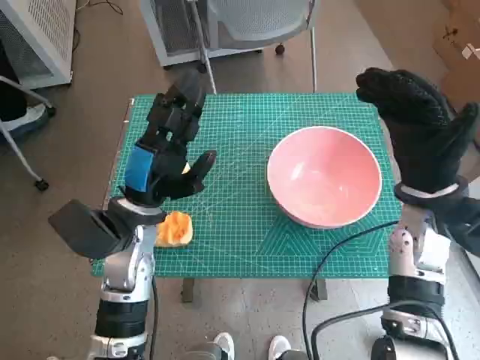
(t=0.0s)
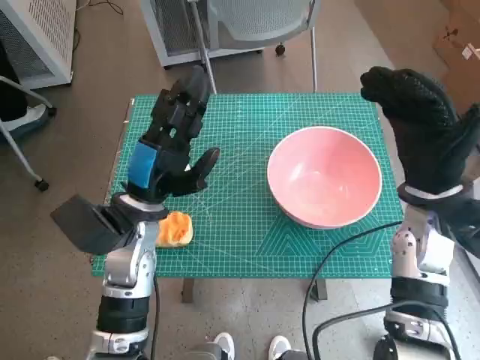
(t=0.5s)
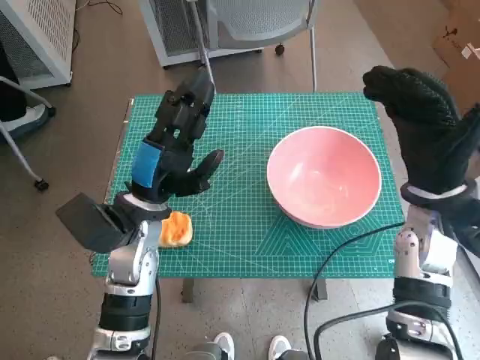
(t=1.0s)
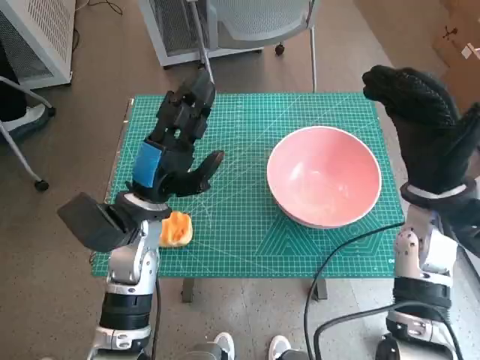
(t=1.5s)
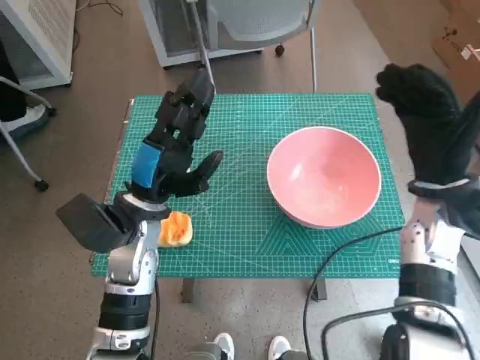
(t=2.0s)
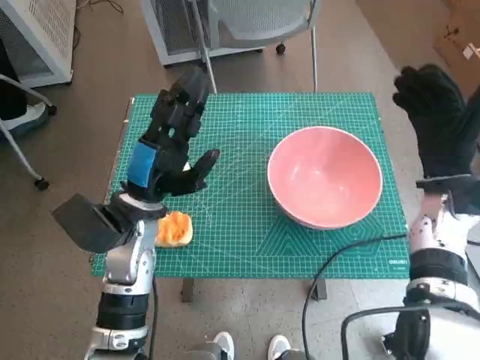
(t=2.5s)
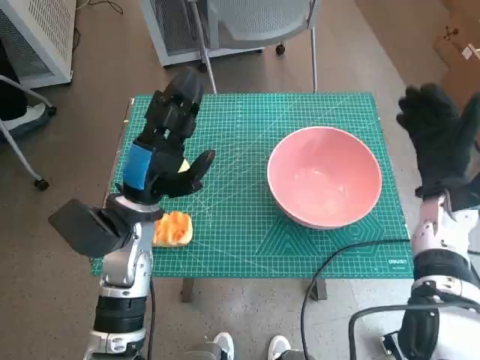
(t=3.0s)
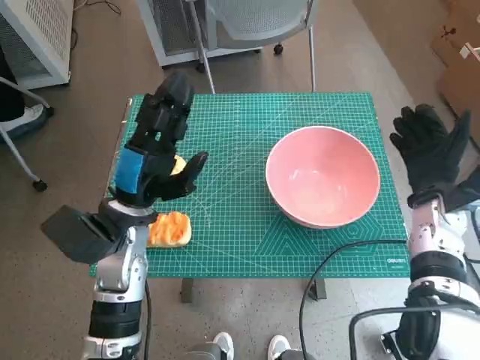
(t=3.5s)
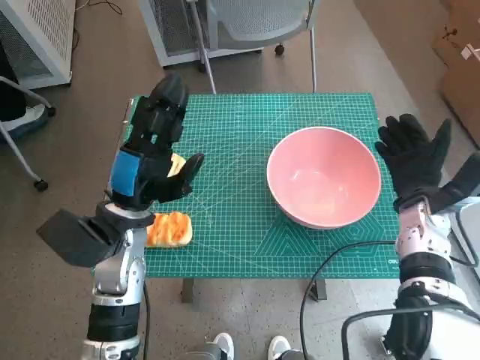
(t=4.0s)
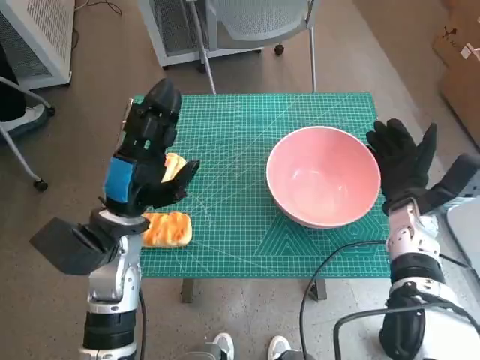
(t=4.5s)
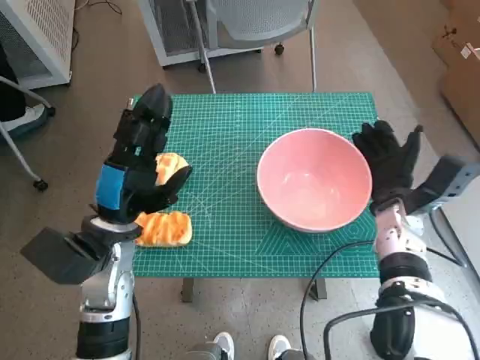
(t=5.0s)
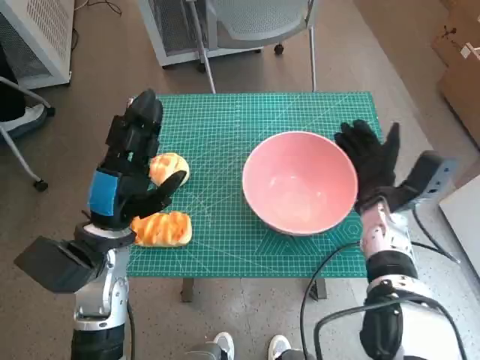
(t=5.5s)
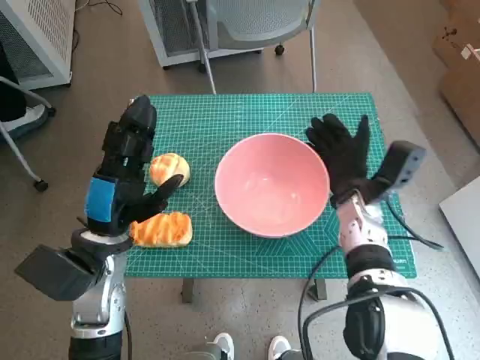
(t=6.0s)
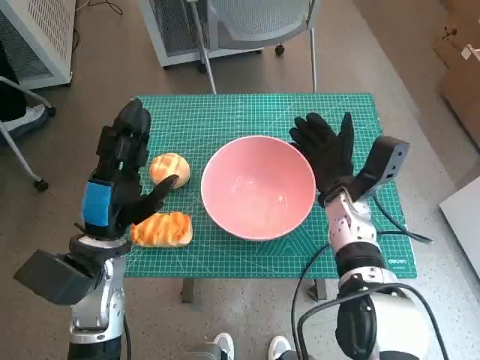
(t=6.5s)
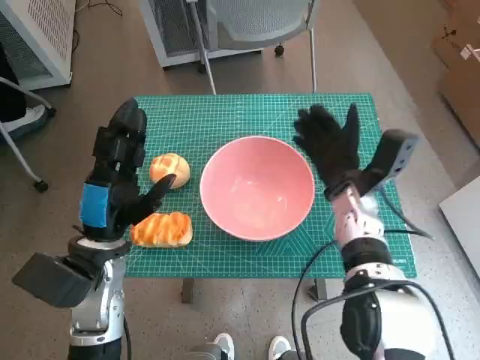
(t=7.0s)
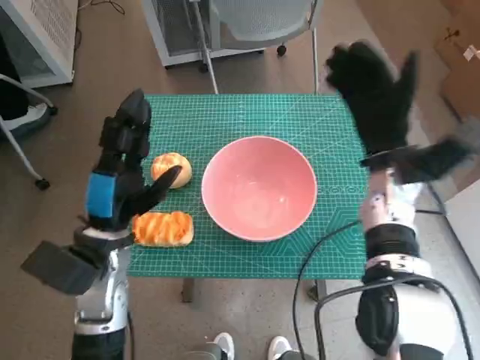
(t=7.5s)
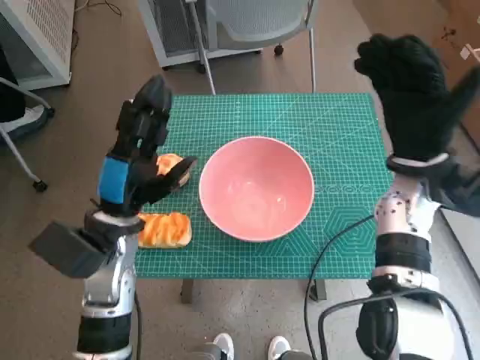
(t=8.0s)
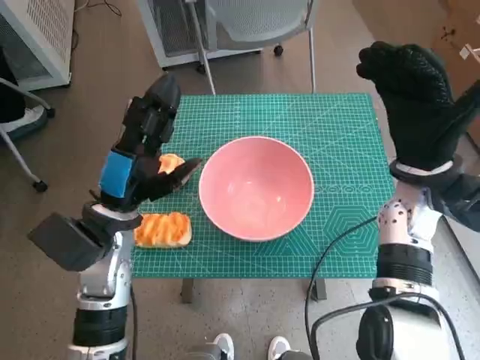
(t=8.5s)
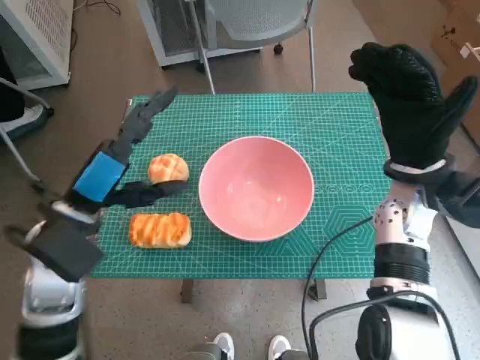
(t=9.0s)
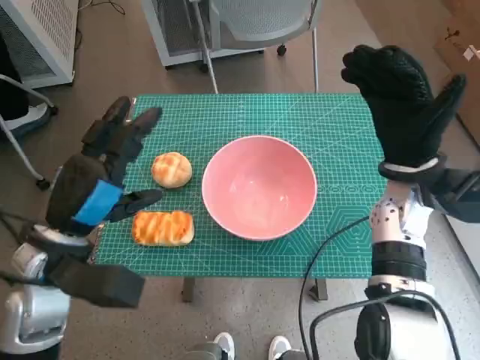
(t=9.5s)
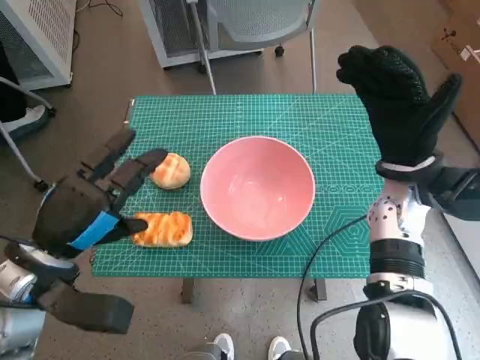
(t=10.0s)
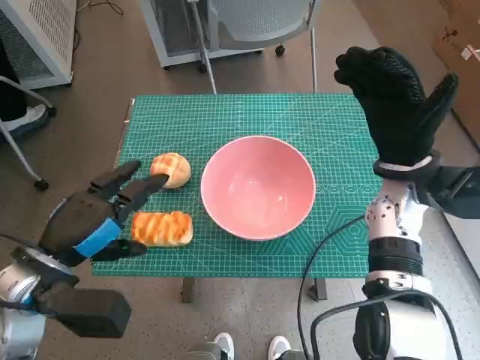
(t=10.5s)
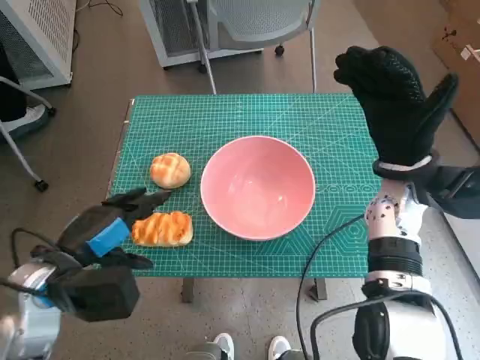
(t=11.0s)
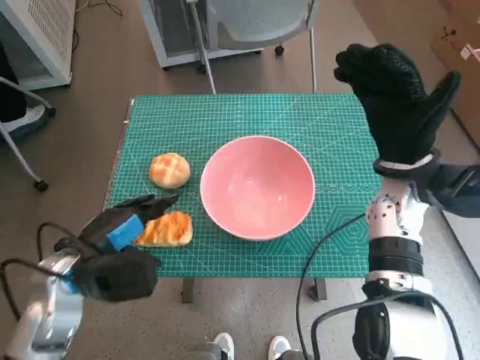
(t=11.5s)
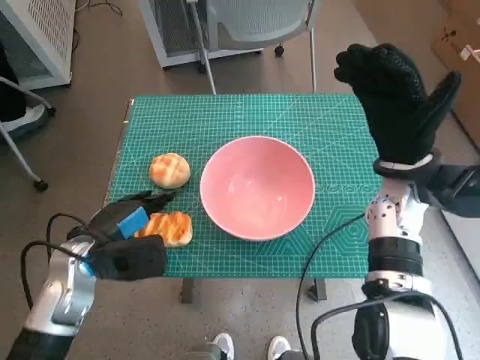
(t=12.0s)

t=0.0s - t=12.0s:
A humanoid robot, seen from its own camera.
Step, t=0.0s - t=7.0s: Move the pink bowl to the center of table with right hand.
t=2.0s - t=4.0s: The right hand moves downward, roughly 5 cm.
t=4.0s - t=6.0s: The right hand shifts some 10 cm to the left.
t=6.0s - t=8.0s: The right hand travels upward by roughly 10 cm.
t=8.0s - t=10.0s: The left hand heads to the left and backward, covering some 10 cm.
t=10.0s - t=12.0s: The left hand shifts about 5 cm downward.

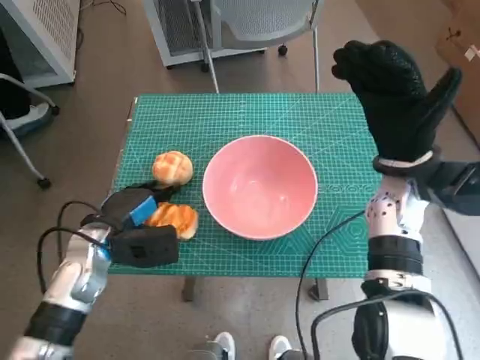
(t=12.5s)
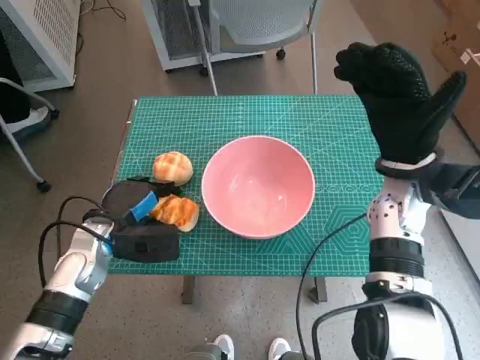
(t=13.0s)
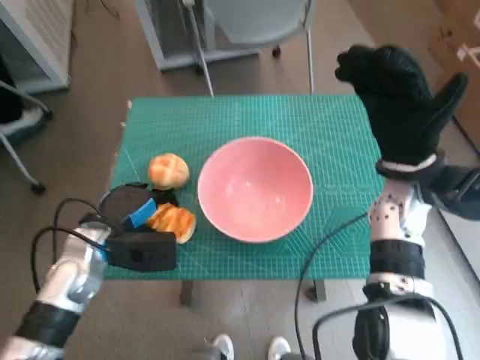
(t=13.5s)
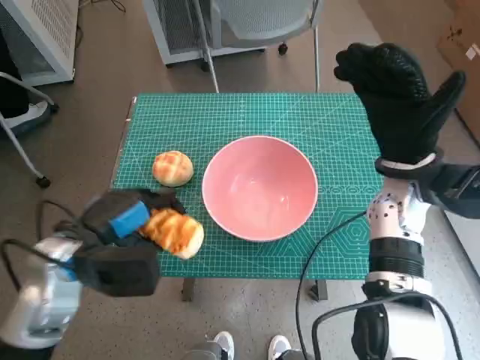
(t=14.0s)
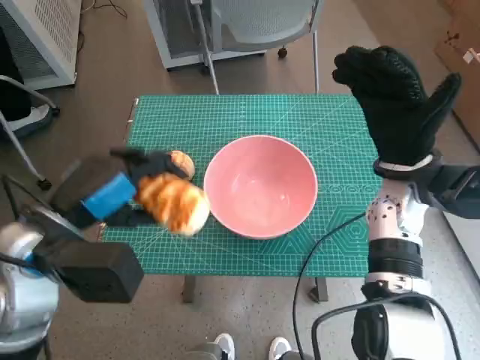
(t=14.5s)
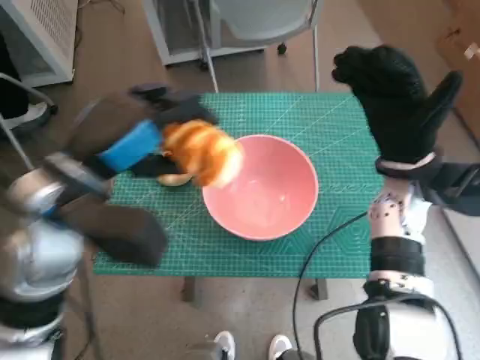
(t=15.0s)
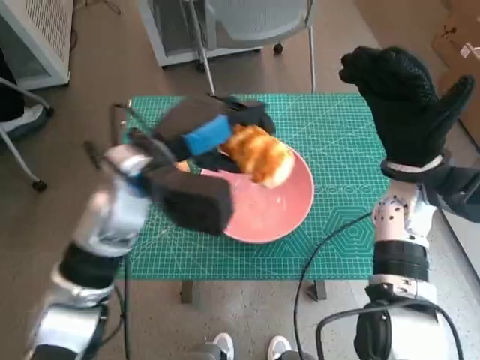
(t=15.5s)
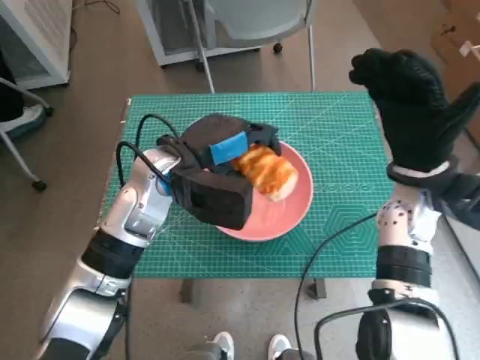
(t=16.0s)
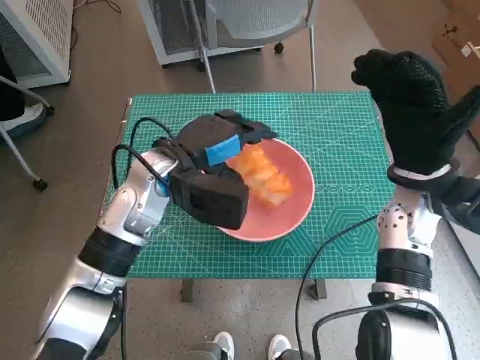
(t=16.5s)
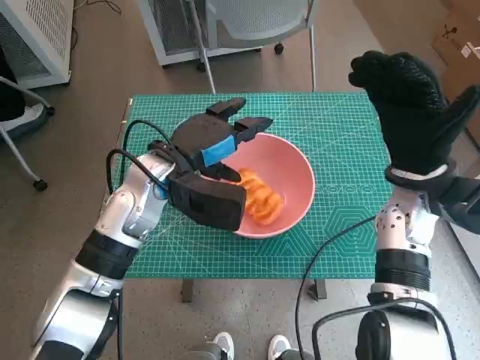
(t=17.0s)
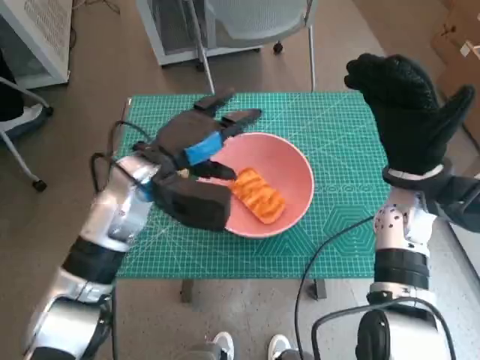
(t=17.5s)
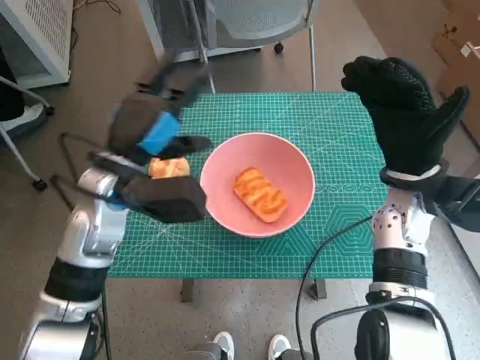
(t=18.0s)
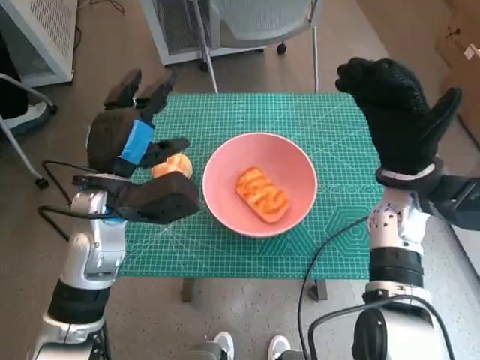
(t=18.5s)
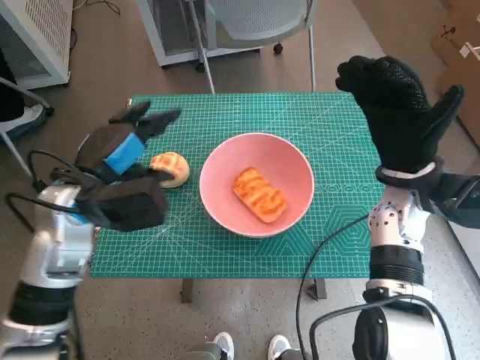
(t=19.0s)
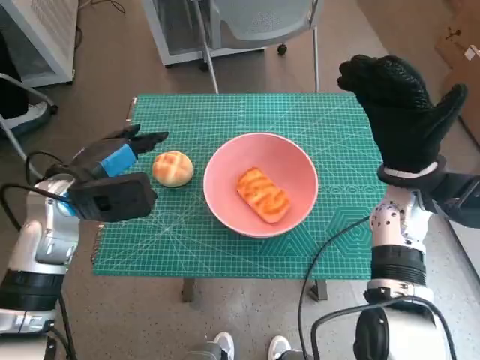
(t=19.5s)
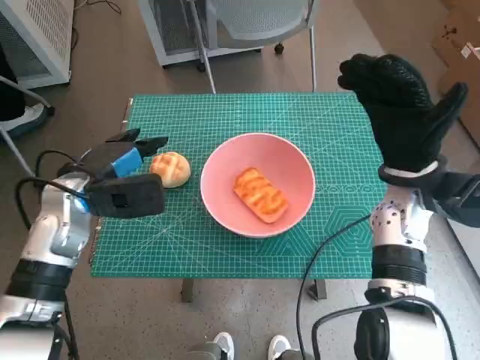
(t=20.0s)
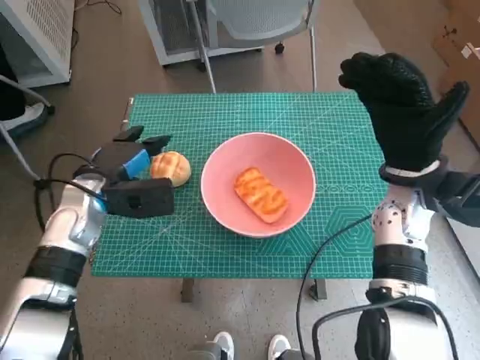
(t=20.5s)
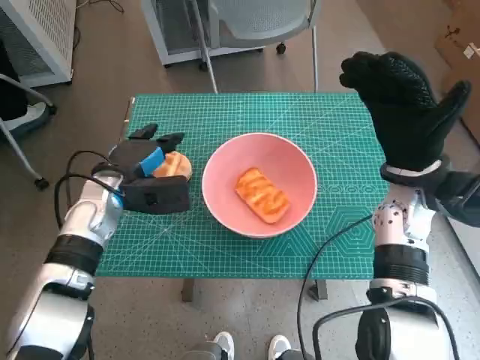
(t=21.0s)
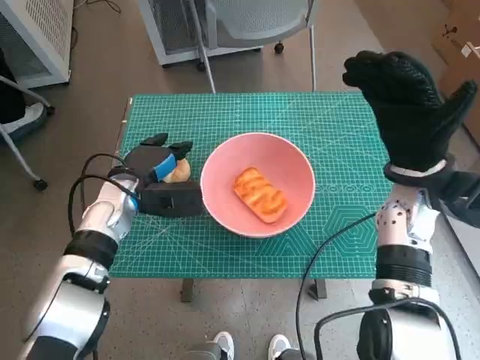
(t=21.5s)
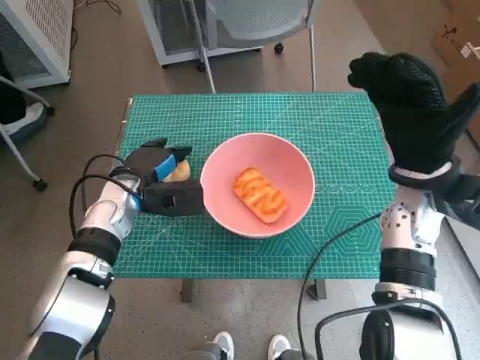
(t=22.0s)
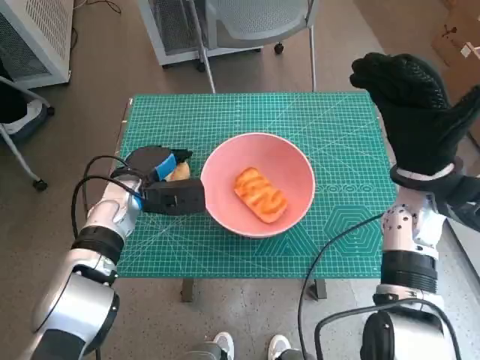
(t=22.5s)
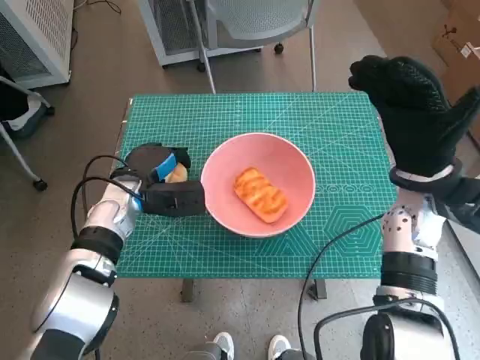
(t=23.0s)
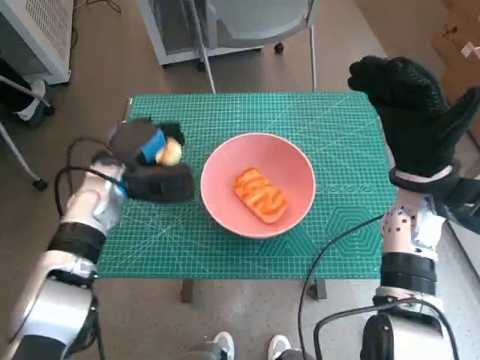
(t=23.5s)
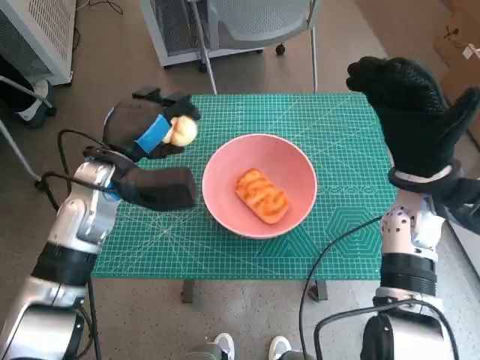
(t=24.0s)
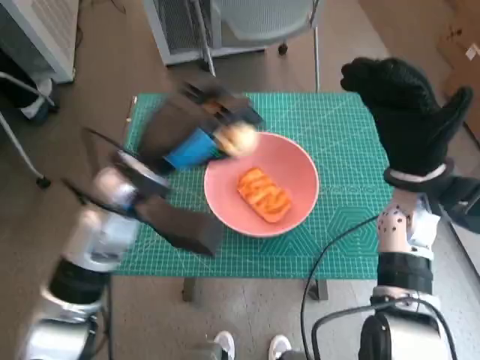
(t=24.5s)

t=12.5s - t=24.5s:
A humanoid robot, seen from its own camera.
Step, t=13.0s - t=16.5s: Place the long bread in pink bowl with left hand.
Step, t=17.0s - t=23.0s: Grasp the round bread with left hand.
t=12.5s - t=14.5s: The left hand goes about 10 cm upward.
t=14.5s - t=16.5s: The left hand moves forward and to the right, some 15 cm.
t=16.5s - t=18.5s: The left hand moves to the left, about 5 cm.
t=18.5s - t=20.5s: The left hand is displaced to the left by some 5 cm.
t=20.5s - t=22.5s: The left hand changes place by some 5 cm.
t=22.5s - t=24.5s: The left hand goes about 15 cm upward, to the right and backward.
